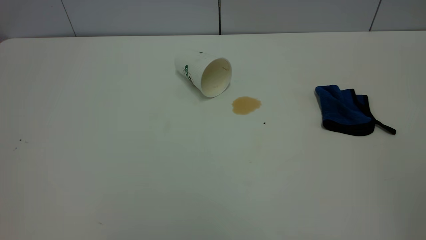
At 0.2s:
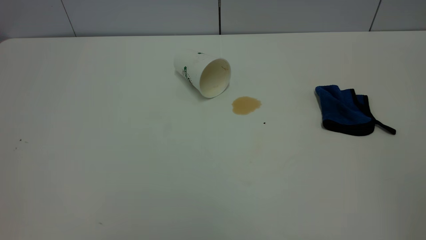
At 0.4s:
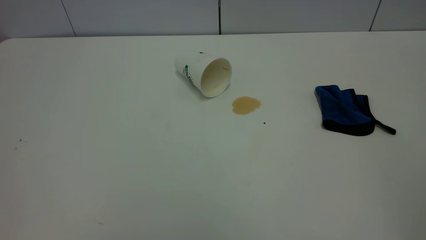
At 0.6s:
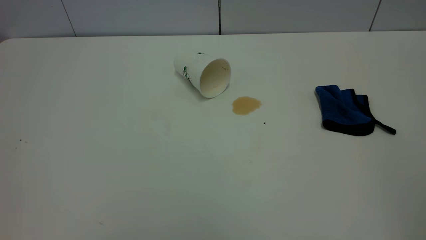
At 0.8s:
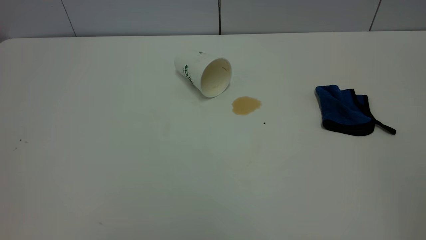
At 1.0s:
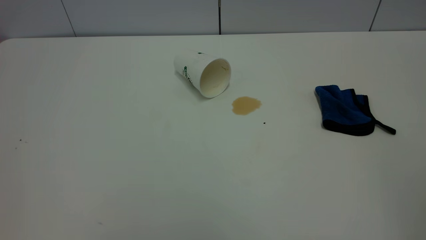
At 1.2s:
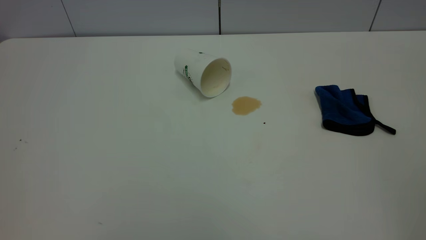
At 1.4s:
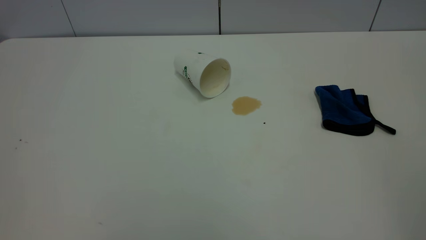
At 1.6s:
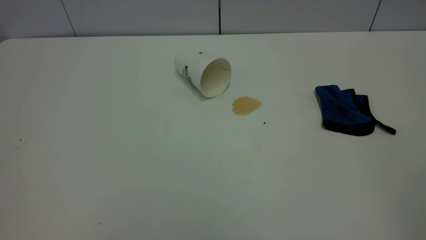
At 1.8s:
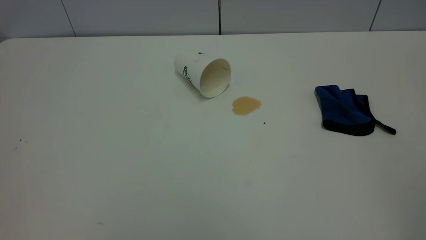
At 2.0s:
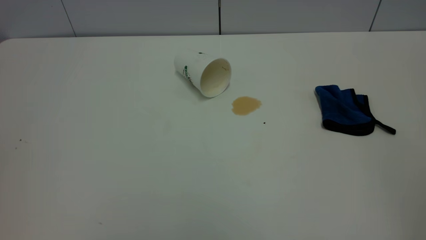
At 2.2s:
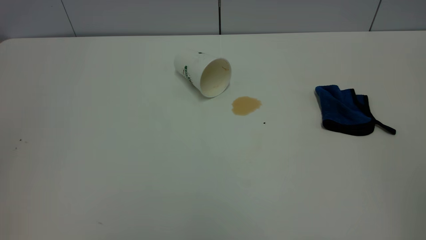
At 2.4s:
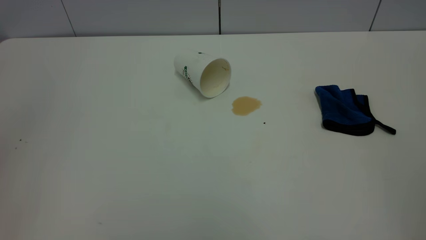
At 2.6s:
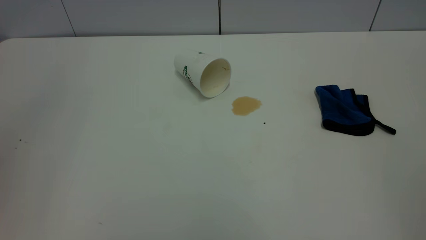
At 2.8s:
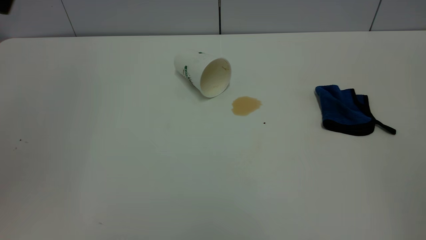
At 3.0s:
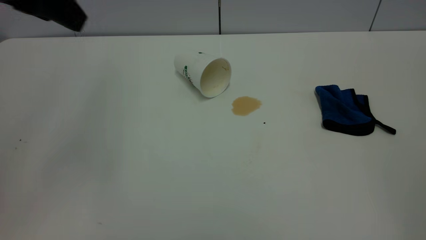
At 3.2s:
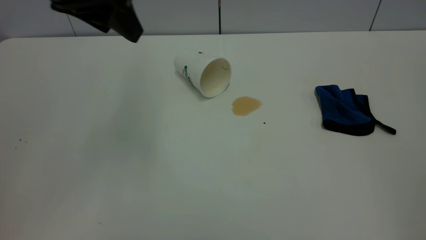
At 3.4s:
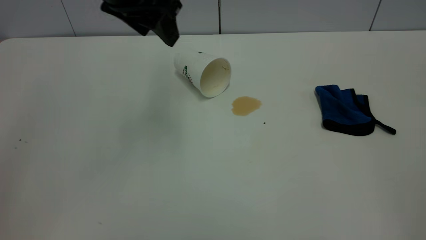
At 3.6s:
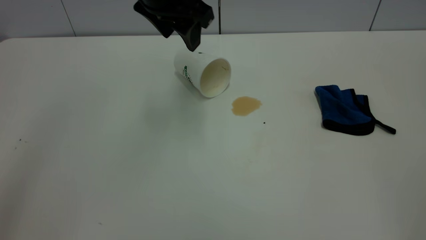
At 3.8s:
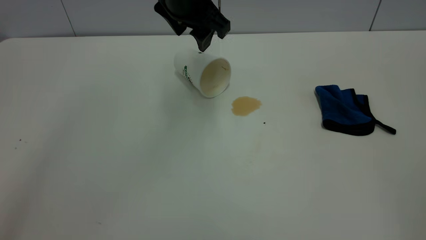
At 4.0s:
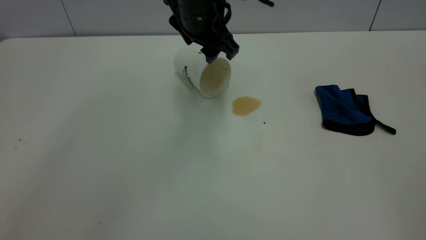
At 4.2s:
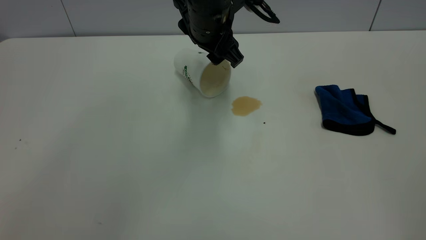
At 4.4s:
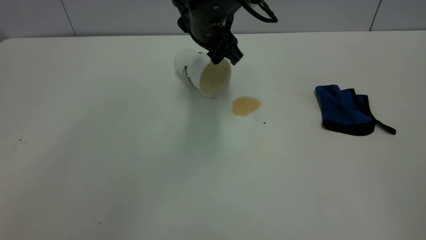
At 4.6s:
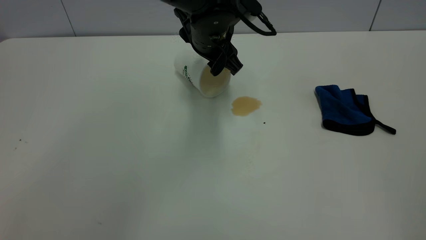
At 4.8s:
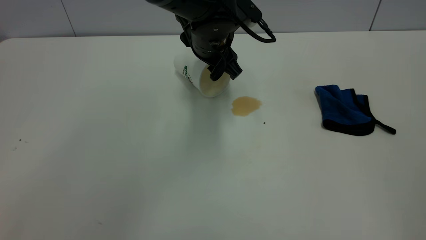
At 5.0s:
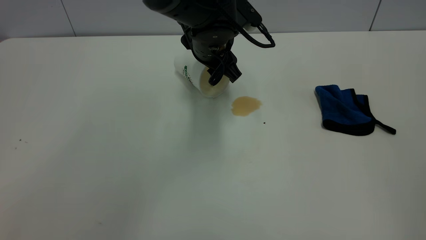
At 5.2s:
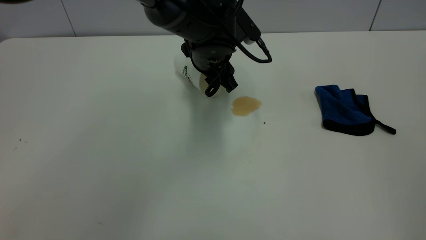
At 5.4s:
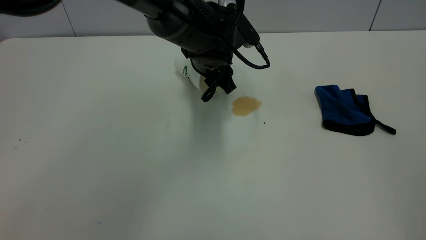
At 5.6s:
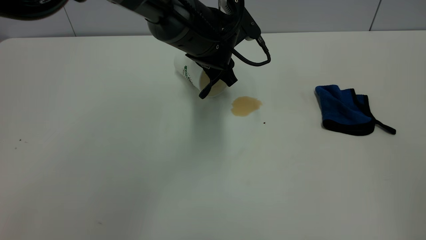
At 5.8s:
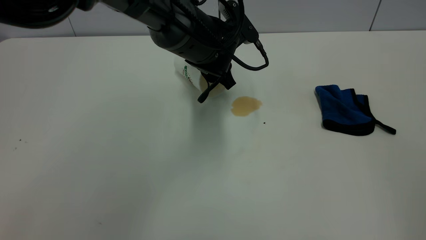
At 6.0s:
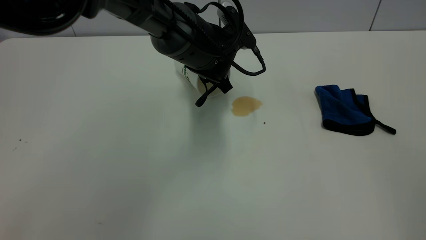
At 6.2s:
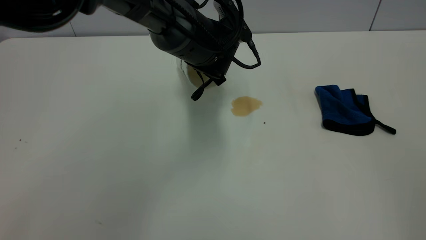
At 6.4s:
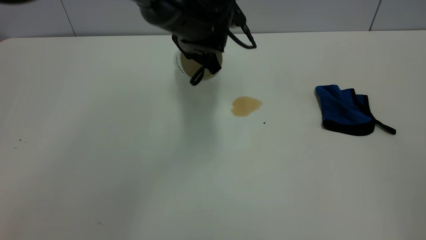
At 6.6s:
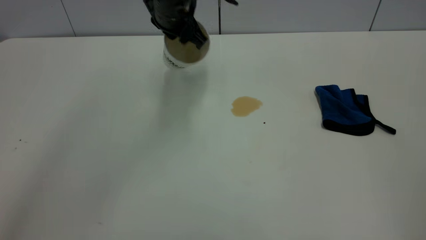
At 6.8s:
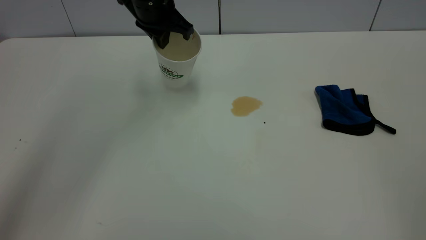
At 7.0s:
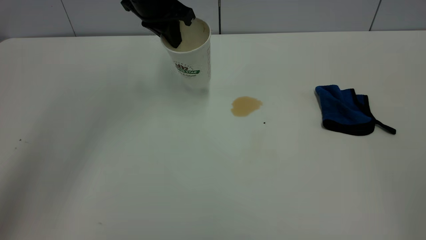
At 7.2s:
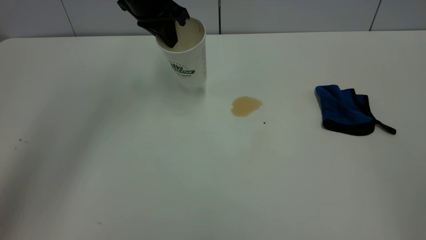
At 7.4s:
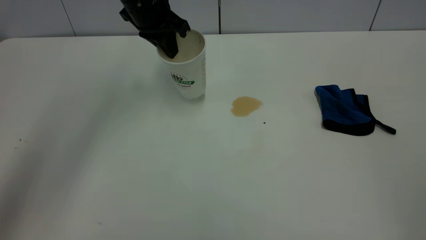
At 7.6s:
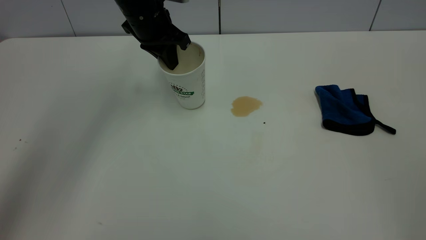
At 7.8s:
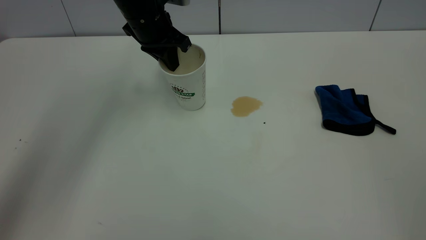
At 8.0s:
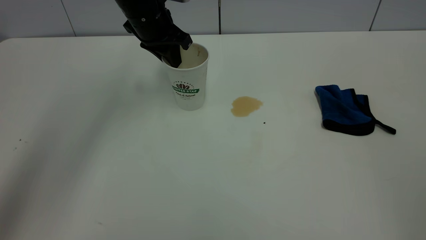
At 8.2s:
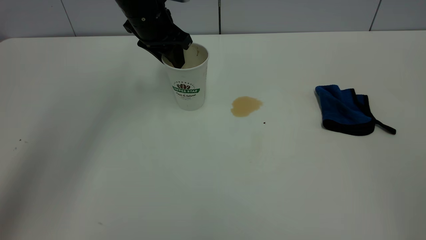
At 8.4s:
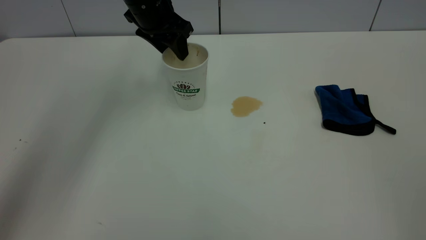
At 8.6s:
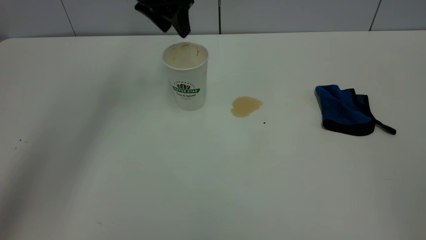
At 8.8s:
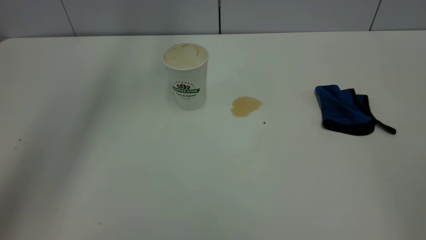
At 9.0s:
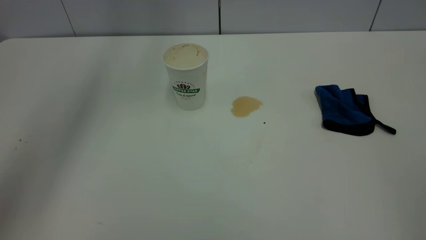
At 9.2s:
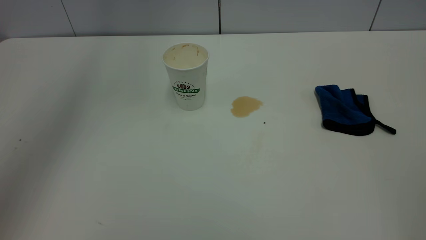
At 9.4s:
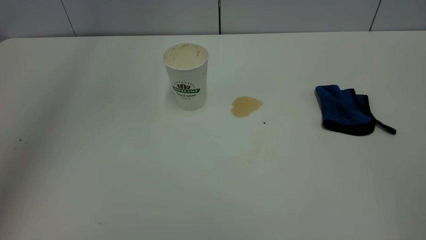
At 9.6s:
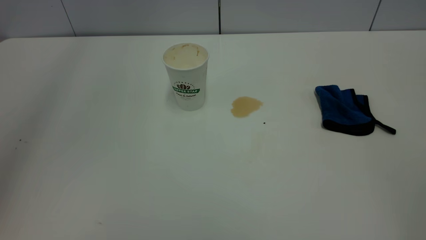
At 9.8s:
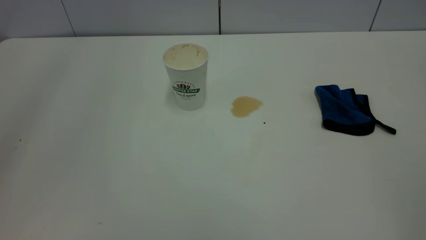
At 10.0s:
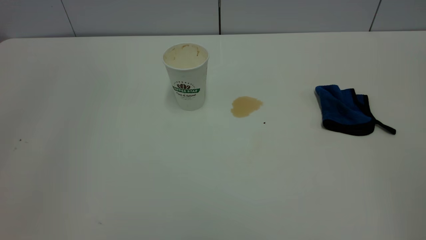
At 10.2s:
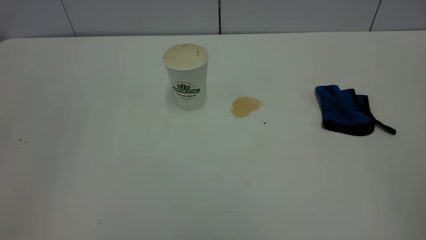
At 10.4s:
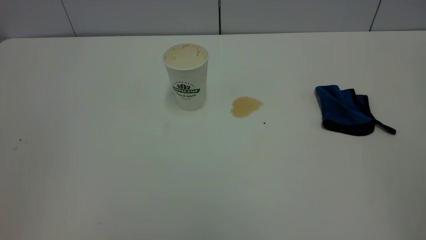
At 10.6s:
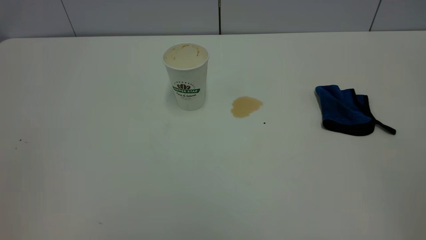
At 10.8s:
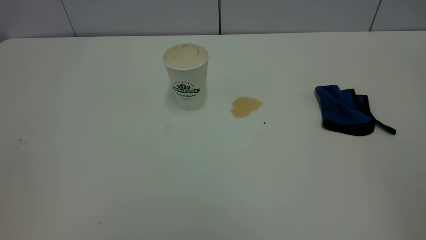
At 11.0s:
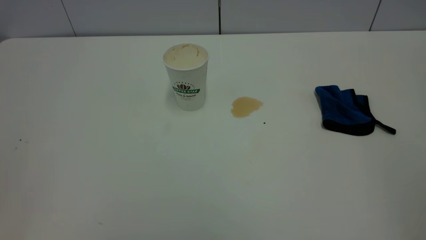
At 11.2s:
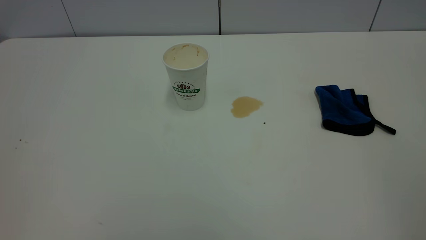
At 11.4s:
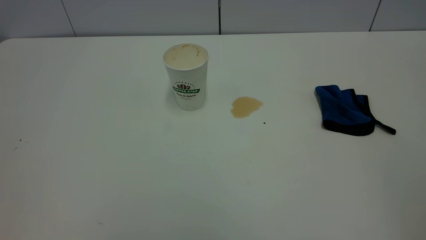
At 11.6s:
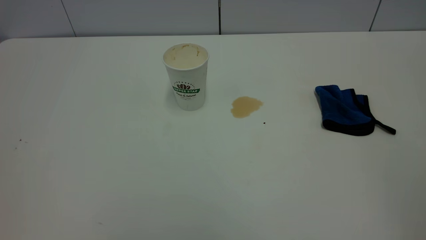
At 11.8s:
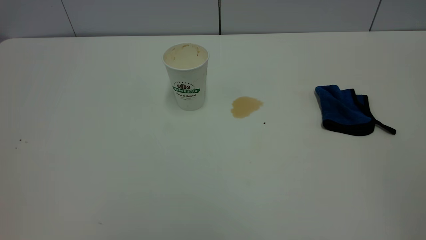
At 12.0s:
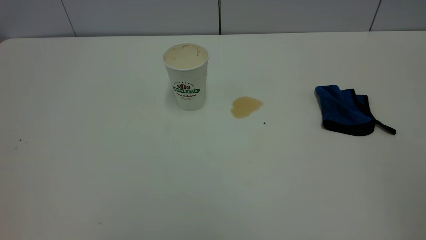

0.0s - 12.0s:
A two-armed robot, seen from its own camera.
Task of the whole recording: the left gripper pick up the fallen cup and place it upright, the right gripper grasp the blue rag and wipe the tea stain on the table, the right gripper put the blue rag back in its original position.
Step, 0.0s - 8.4s: Stand the paper cup upright.
0.0s - 1.6s: The two grippers keep their place.
1.6s - 3.0s: The left gripper shifts some 30 cm forward.
3.0s - 4.4s: The left gripper heads to the right, downward and forward, covering about 30 cm.
4.4s - 6.0s: The left gripper shifts about 10 cm downward, and closes its fingers.
6.0s - 7.6s: The left gripper heads to the left, upward and forward, covering about 15 cm, and closes up.
7.6s - 9.0s: The left gripper heads upward, covering about 25 cm, and opens.
9.0s - 10.4s: The left gripper shifts approximately 40 cm backward.

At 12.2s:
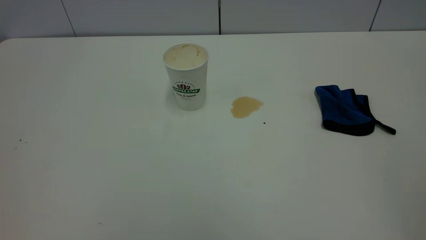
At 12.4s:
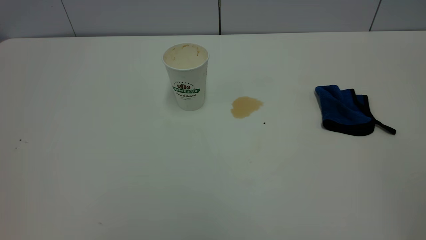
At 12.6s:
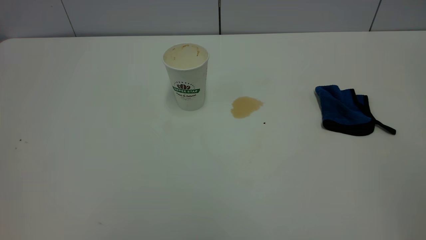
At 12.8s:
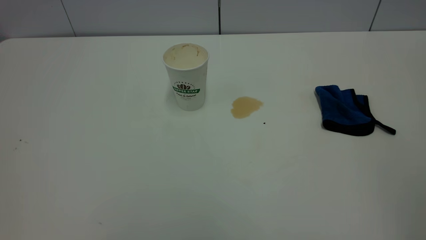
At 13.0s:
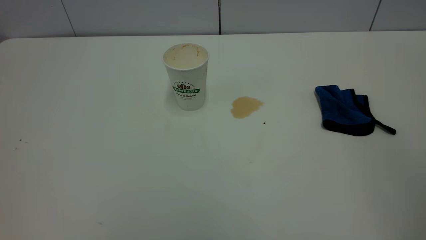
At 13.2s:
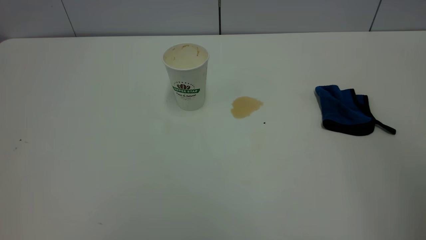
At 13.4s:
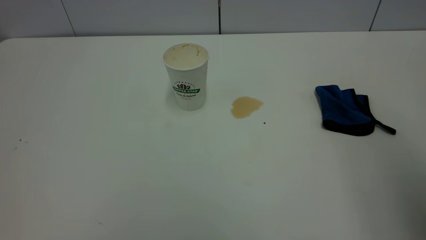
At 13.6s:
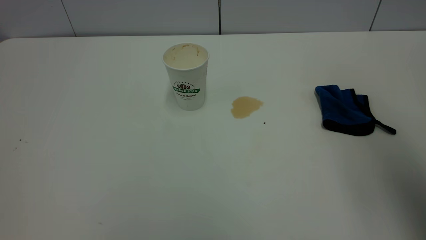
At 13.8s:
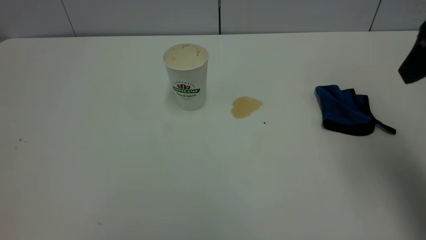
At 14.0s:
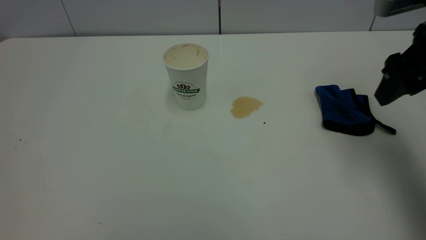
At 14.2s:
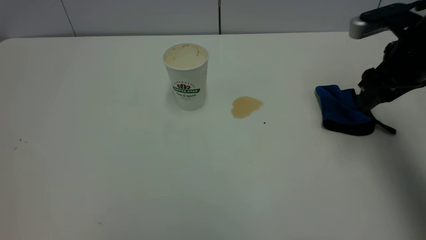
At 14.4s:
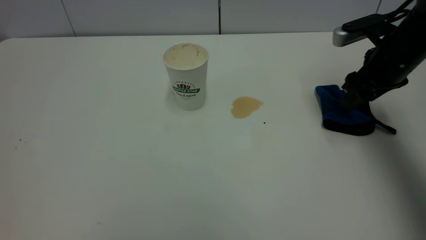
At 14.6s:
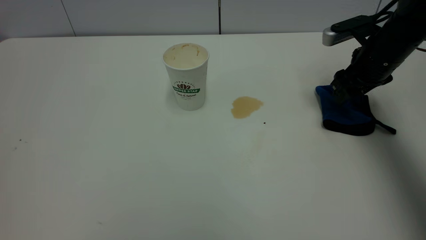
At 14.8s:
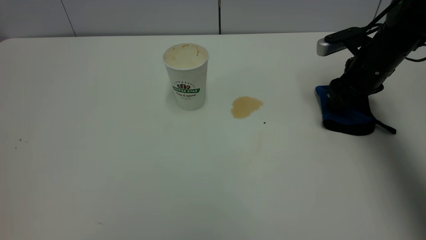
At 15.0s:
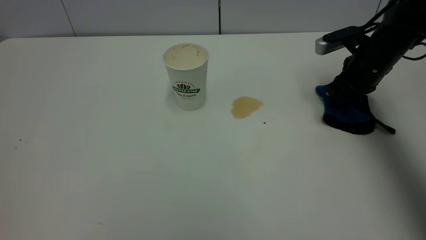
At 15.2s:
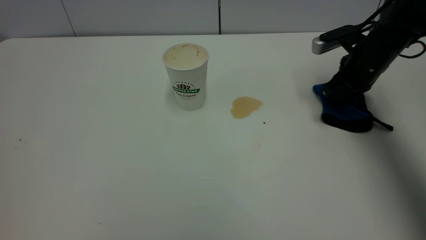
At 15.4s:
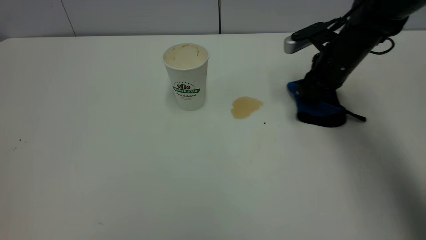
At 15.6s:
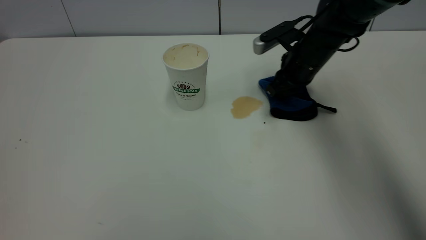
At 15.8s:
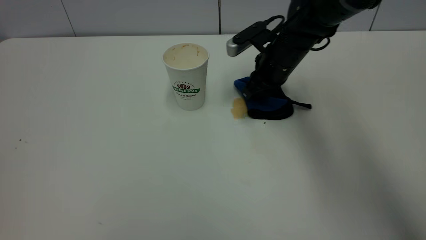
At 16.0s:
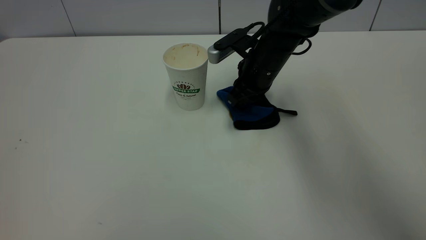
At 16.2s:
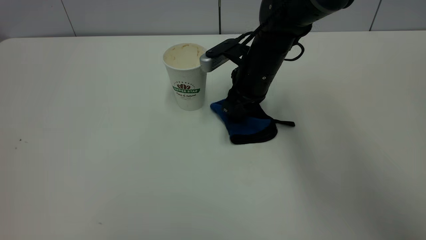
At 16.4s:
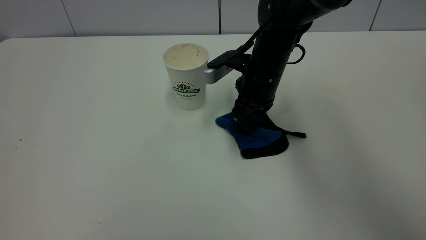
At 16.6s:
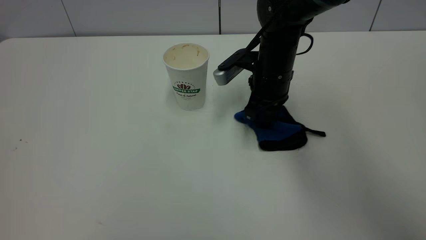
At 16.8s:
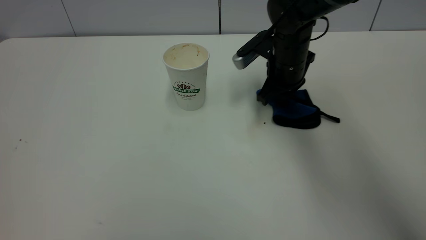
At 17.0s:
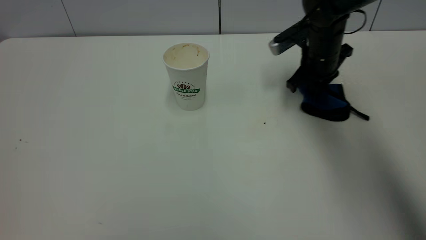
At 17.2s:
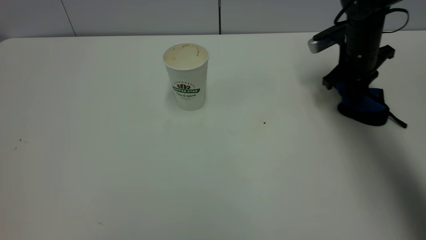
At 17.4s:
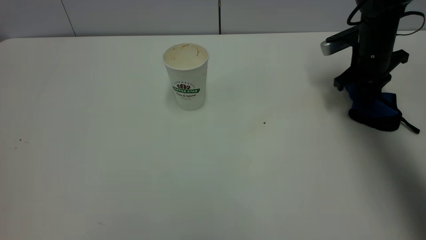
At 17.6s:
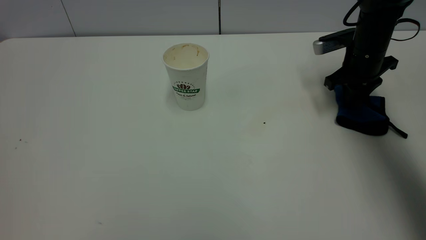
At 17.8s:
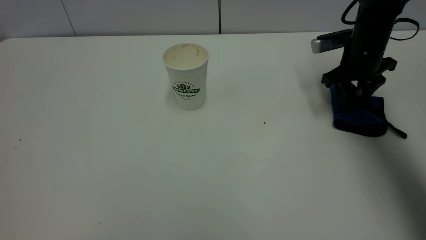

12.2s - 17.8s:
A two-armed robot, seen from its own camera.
Task of the whole recording: the left gripper pick up the fallen cup and place it upright, the right gripper grasp the blue rag and wipe the tea stain on the table, the right gripper put the blue rag back in its original position.
12.2s - 13.6s: The right gripper goes about 25 cm forward.
13.6s - 15.0s: The right gripper goes about 30 cm downward and forward, and closes its fingers.
15.0s - 16.4s: The right gripper travels to the left by roughly 20 cm.
16.4s - 17.8s: The right gripper heads to the right, covering about 20 cm, and opens its fingers.
